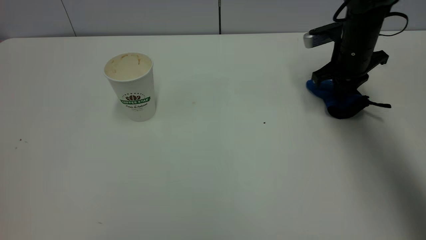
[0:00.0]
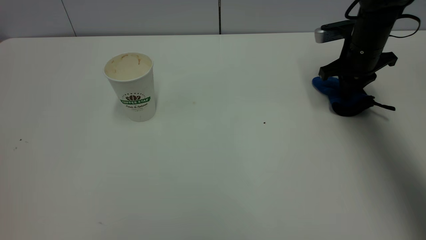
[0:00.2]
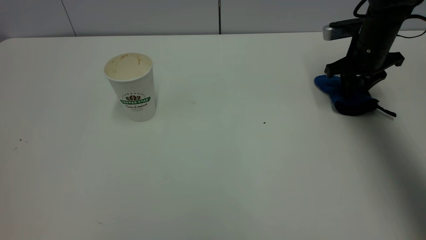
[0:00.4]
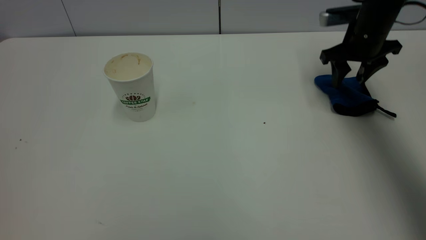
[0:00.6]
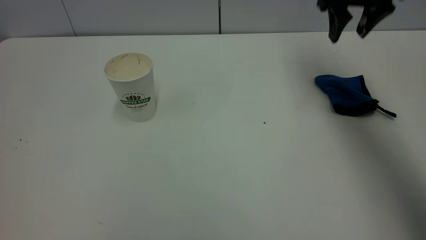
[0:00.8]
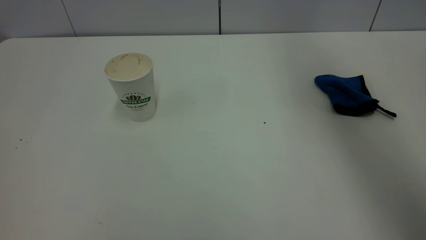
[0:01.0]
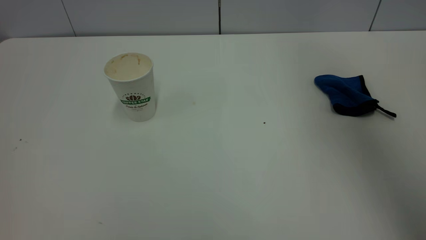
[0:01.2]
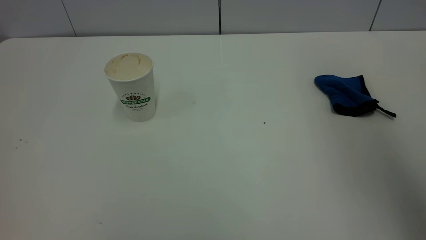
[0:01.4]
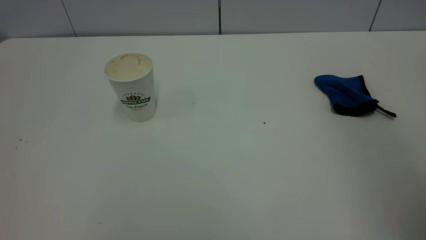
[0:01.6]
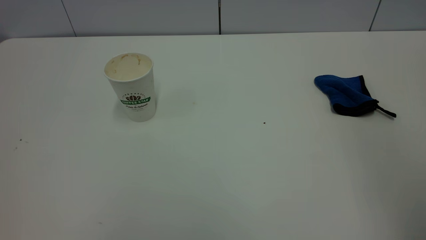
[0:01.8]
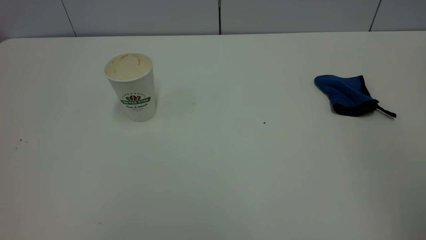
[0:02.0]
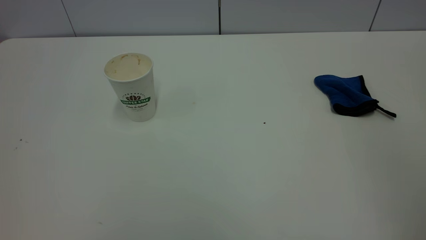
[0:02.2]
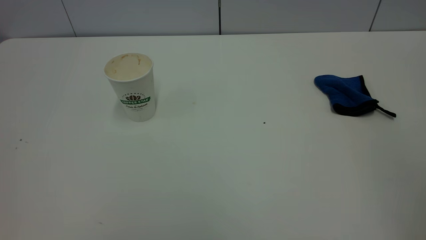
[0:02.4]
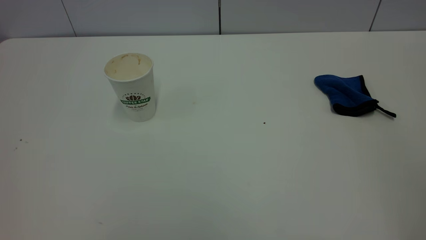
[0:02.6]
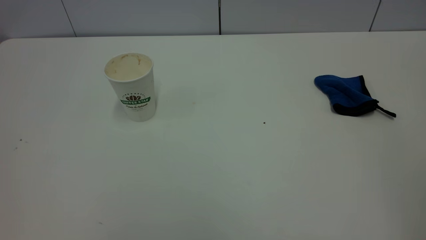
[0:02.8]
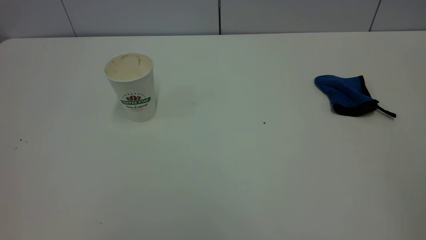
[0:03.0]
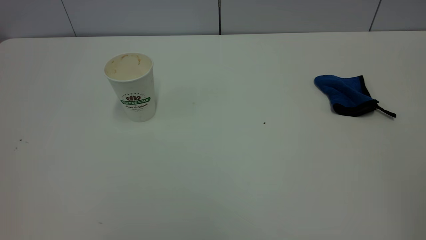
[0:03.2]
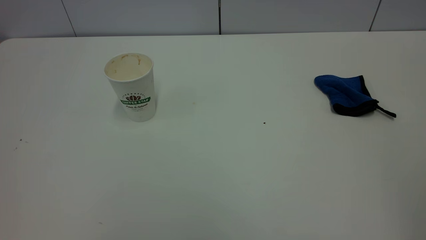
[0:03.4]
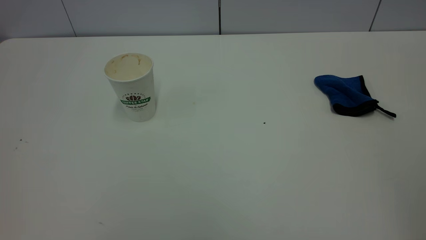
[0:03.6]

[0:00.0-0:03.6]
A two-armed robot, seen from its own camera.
Task of the whole recording: the left gripper pick up the fallen cup and place it upright, the right gripper grasp the blue rag and wipe the tea stain on the table, the right gripper put the blue rag back in its original position.
0:00.0 to 0:01.8: The right gripper is displaced backward and upward by some 40 cm, and opens.
